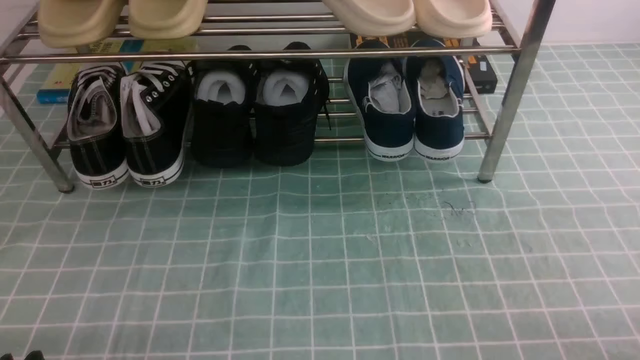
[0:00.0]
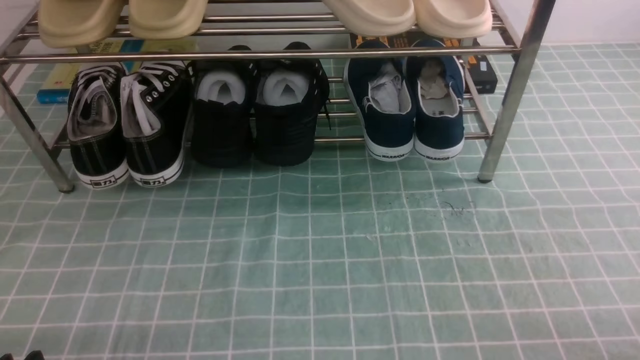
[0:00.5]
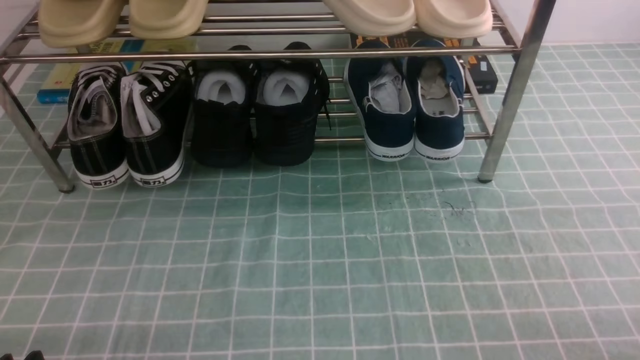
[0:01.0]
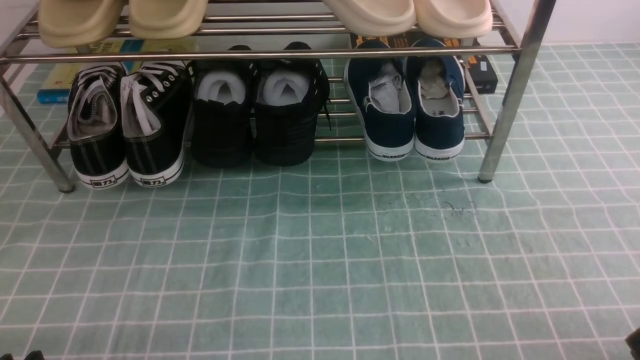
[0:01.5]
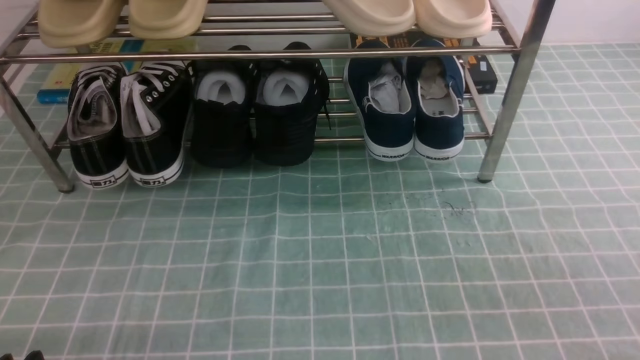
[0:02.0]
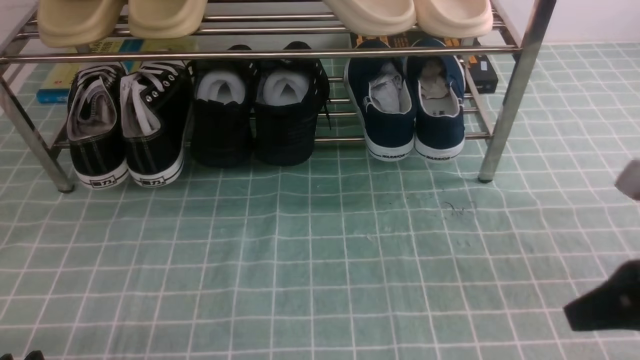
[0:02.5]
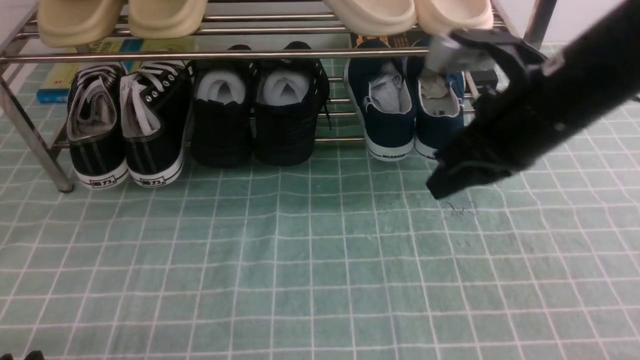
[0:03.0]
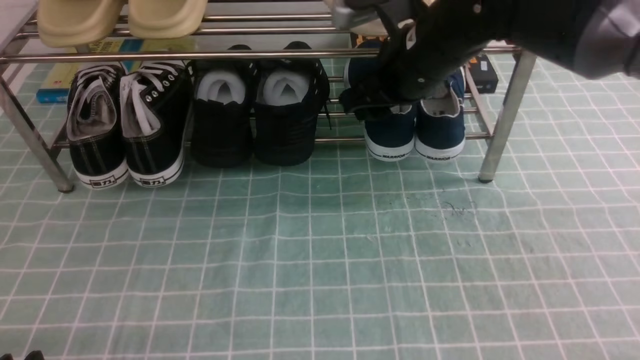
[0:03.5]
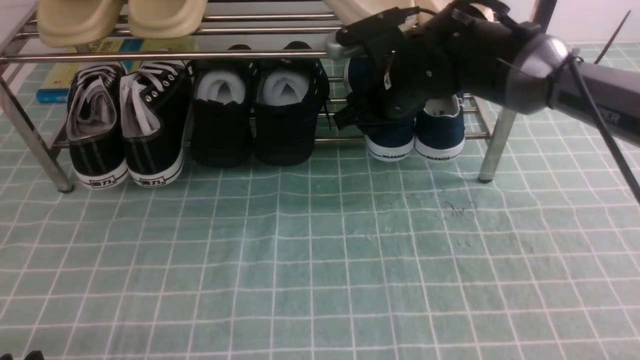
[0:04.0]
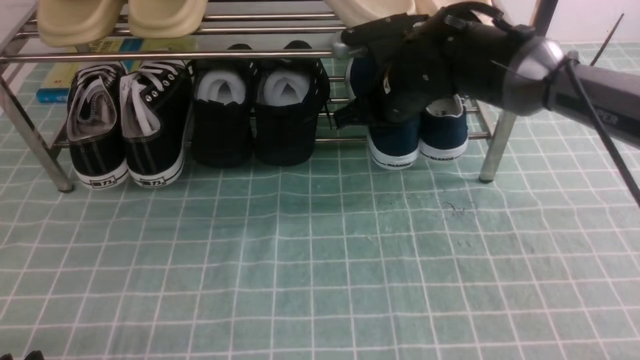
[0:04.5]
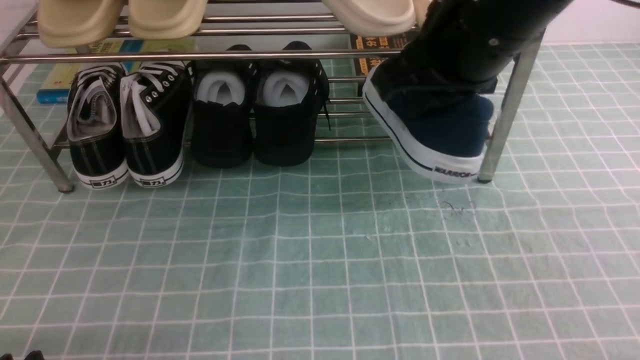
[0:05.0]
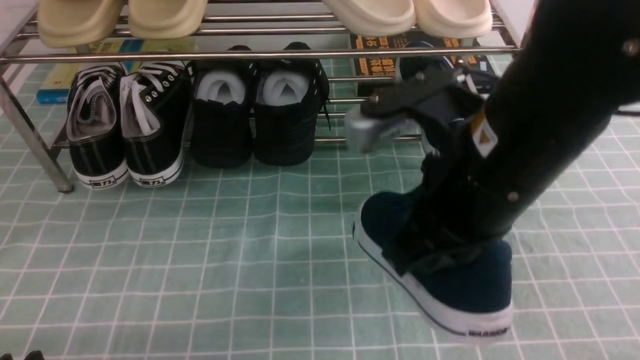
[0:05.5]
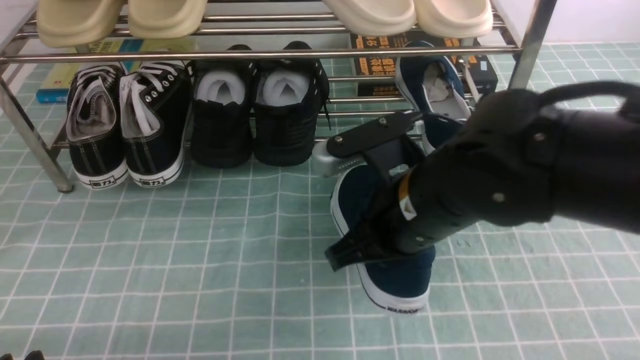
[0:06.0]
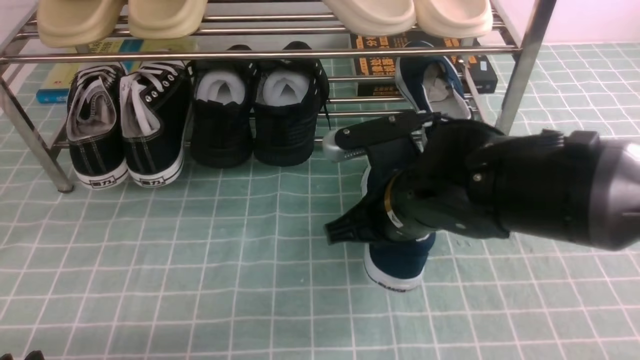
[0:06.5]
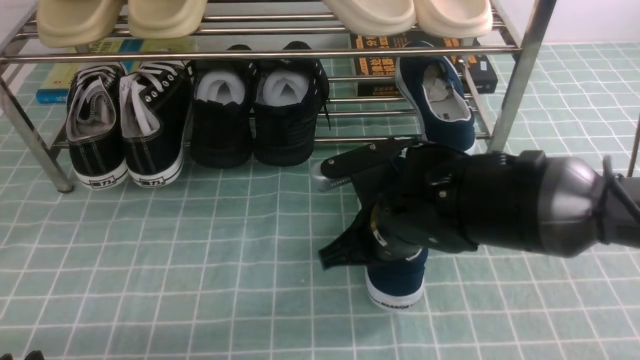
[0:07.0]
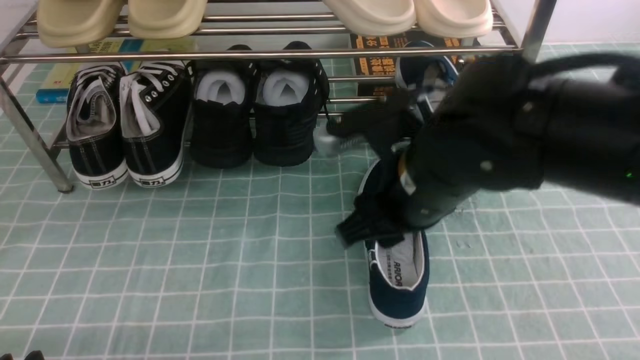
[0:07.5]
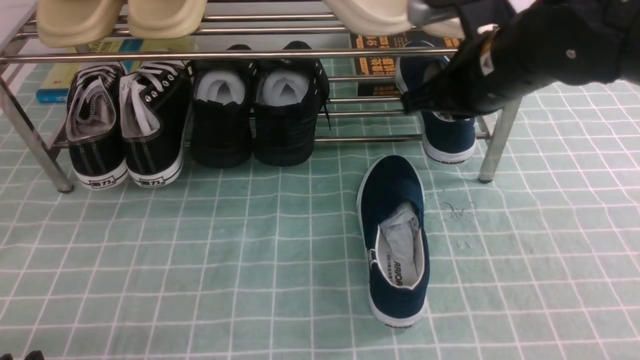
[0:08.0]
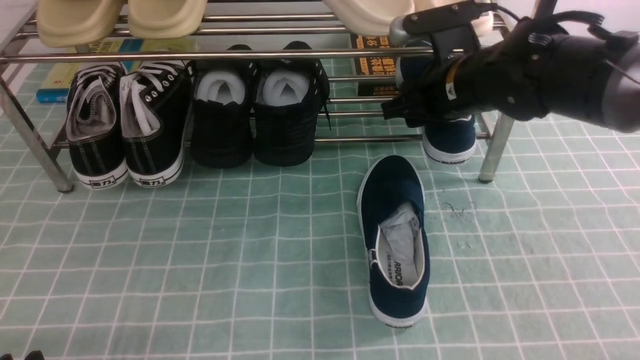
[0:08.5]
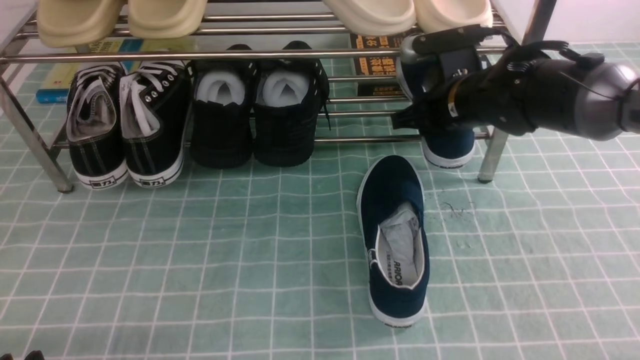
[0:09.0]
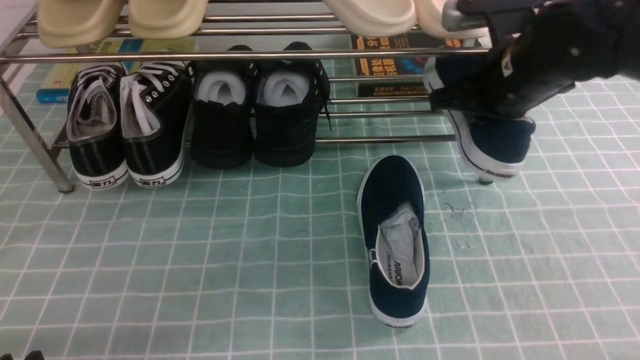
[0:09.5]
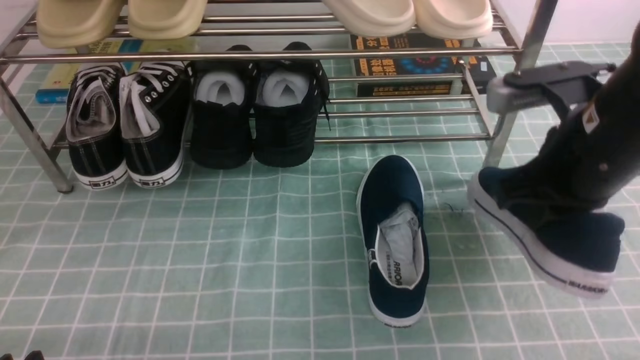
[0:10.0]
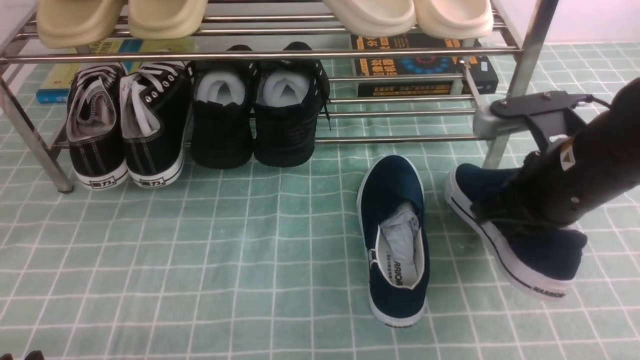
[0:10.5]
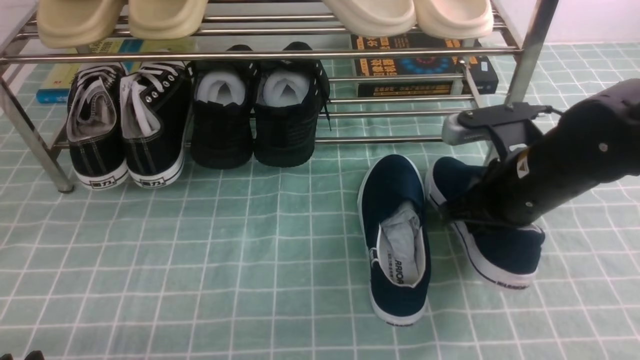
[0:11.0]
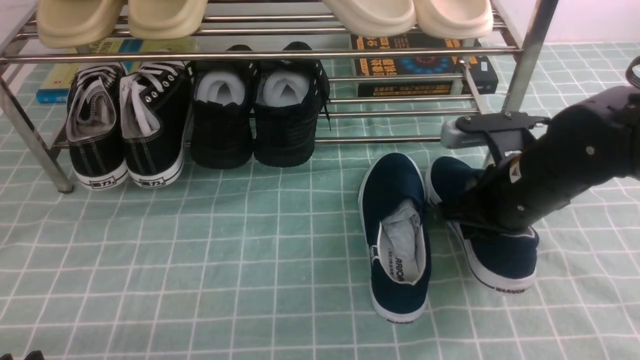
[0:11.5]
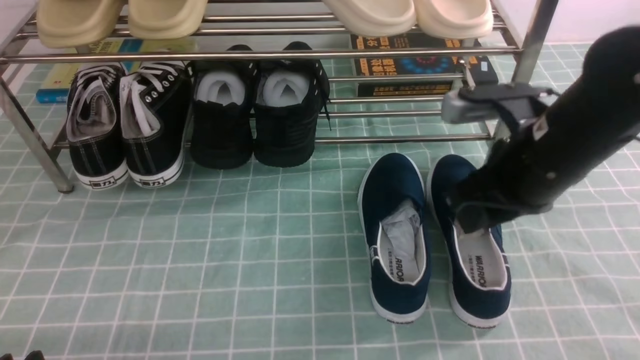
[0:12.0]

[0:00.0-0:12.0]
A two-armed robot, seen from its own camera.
Step, 0:00.0 to 0:04.0: use the right arm to clamp a shoe on the right side of the shoe rack.
Step, 0:04.5 to 0:07.5: use the right arm to take out the clamped shoe from the shoe rack and put it down.
Step, 0:08.0 to 0:08.5: use the right arm to clamp a shoe on the right side of the shoe rack.
Step, 0:09.0 to 0:11.5: use the right arm to take out the clamped shoe from the shoe rack and put it down.
0:02.0 to 0:04.0: The right gripper is displaced forward and to the left by approximately 40 cm, and opens its fingers.
0:04.0 to 0:06.0: The right gripper is displaced backward by some 20 cm, and closes.
0:06.0 to 0:08.0: The right gripper heads forward, to the right and upward, covering approximately 15 cm, and opens, then closes again.
0:08.0 to 0:10.0: The right gripper heads backward and to the right, covering roughly 10 cm, and opens and closes again.
0:10.0 to 0:12.0: The right gripper reaches approximately 10 cm downward, then returns, and opens.

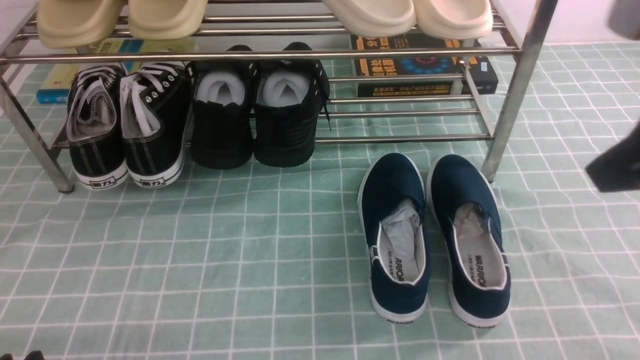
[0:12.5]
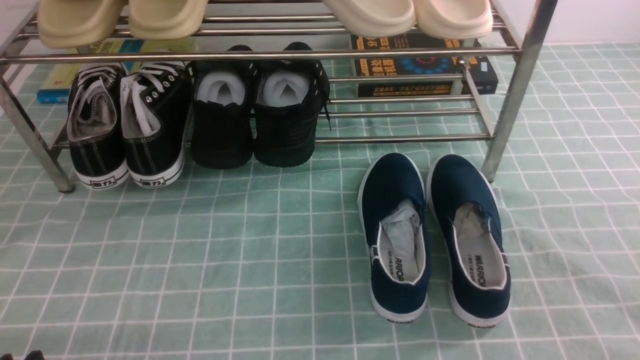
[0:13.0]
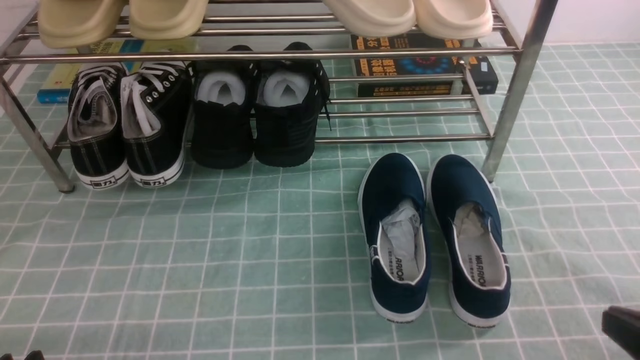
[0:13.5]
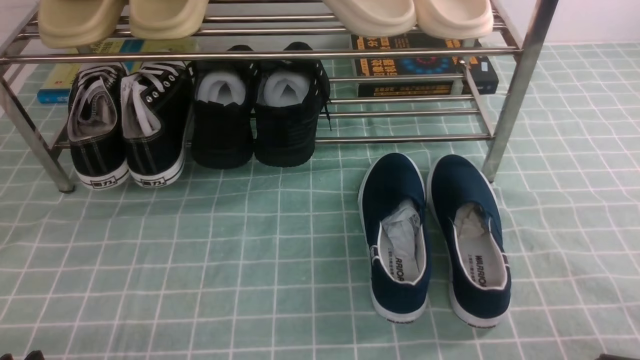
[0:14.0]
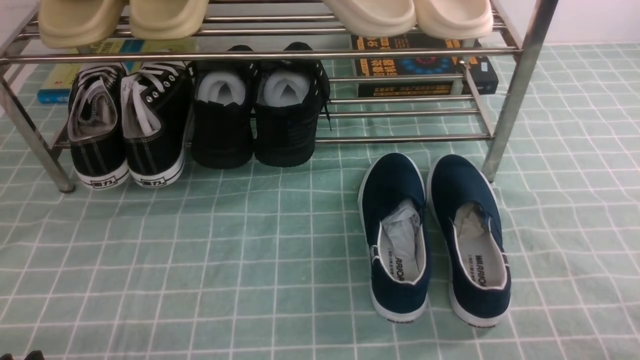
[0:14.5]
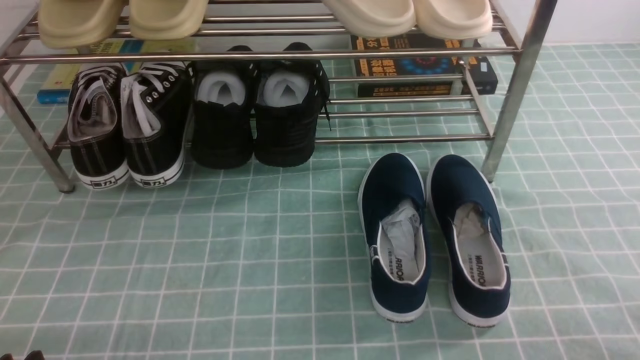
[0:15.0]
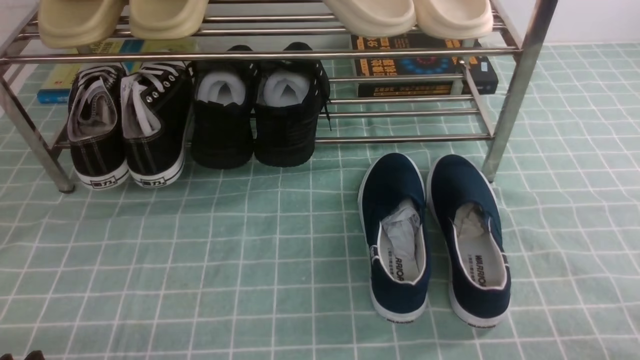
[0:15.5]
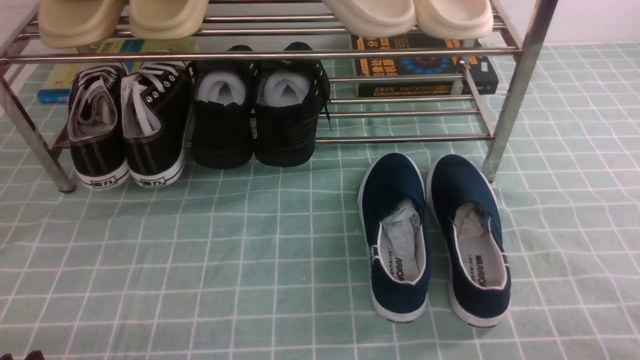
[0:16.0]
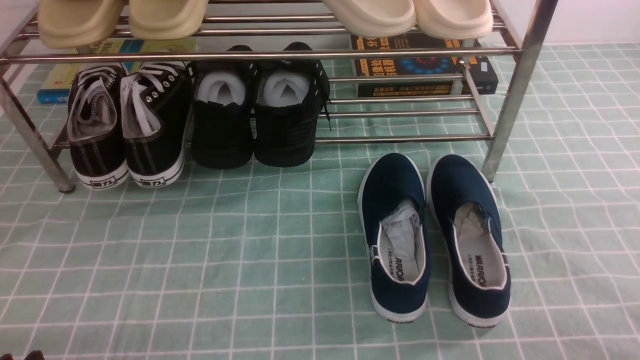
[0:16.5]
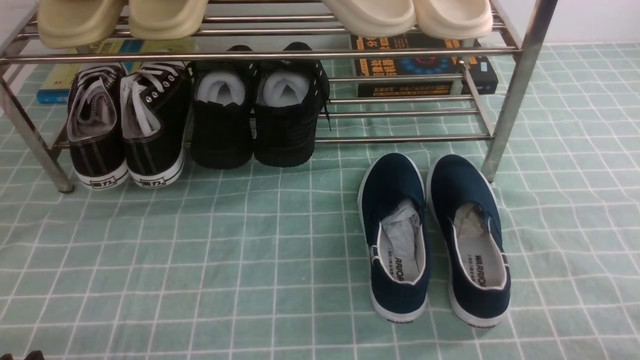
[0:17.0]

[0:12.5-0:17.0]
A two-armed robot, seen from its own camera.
0:12.5 to 0:14.5: The right gripper moves downward and backward, some 25 cm.
